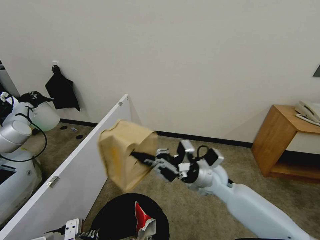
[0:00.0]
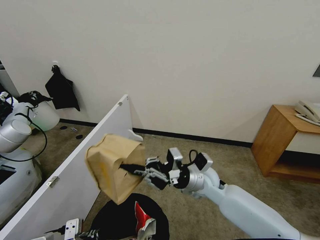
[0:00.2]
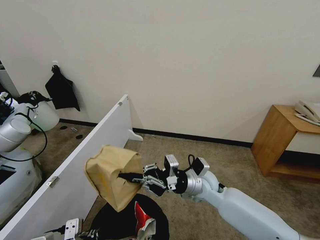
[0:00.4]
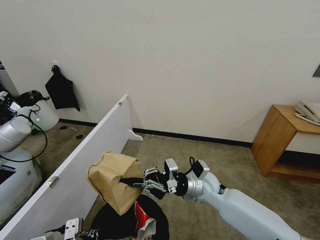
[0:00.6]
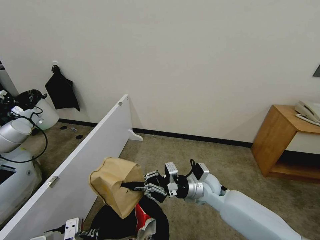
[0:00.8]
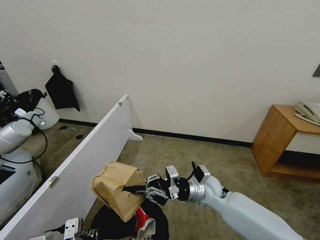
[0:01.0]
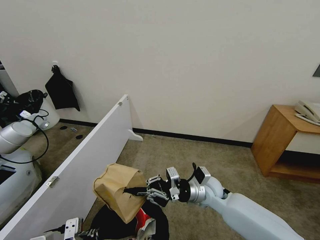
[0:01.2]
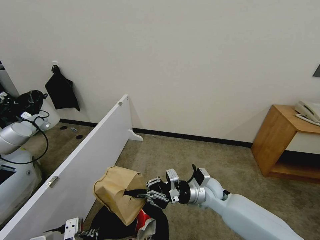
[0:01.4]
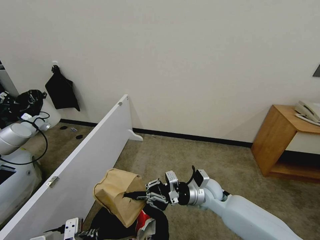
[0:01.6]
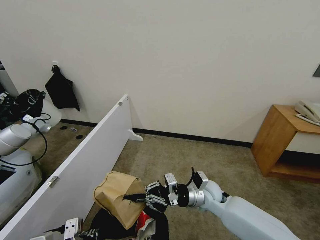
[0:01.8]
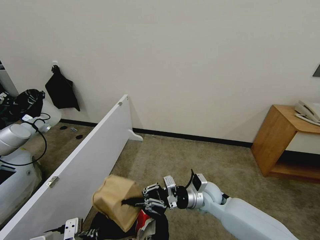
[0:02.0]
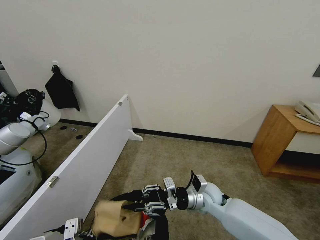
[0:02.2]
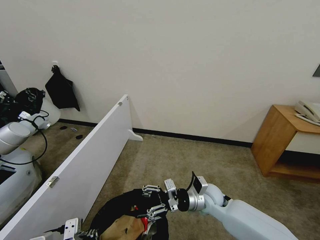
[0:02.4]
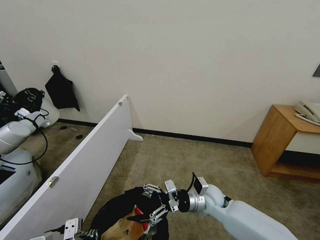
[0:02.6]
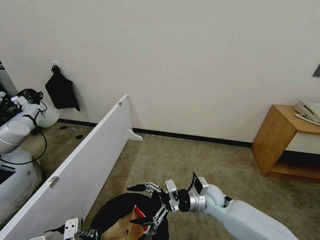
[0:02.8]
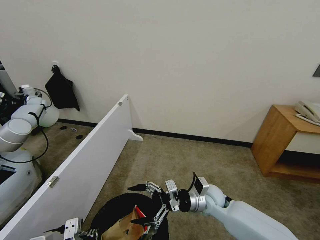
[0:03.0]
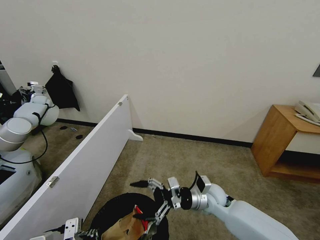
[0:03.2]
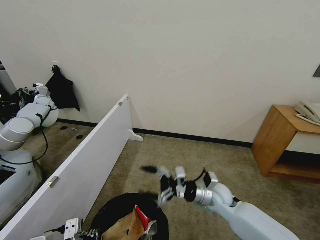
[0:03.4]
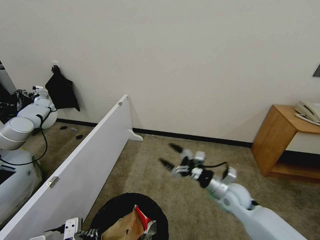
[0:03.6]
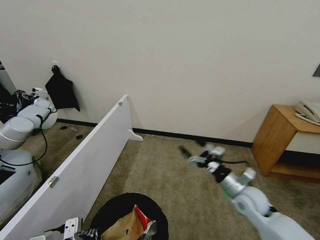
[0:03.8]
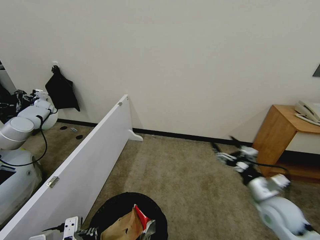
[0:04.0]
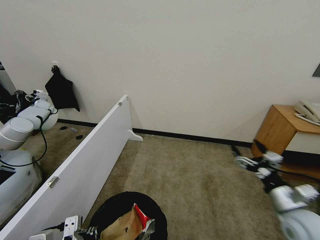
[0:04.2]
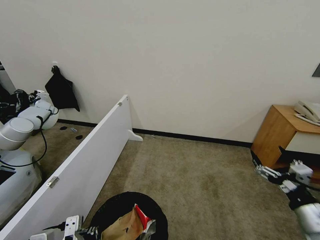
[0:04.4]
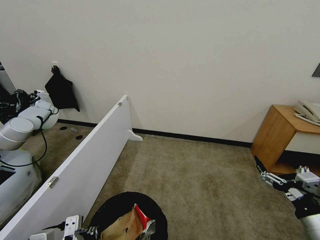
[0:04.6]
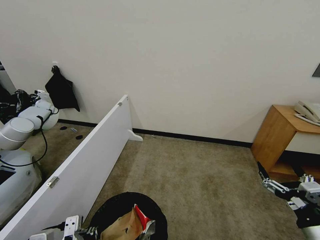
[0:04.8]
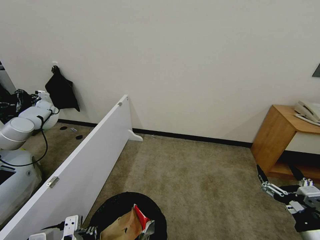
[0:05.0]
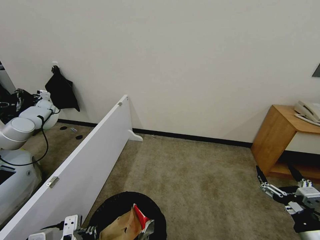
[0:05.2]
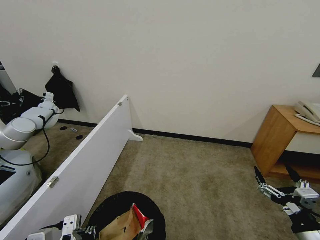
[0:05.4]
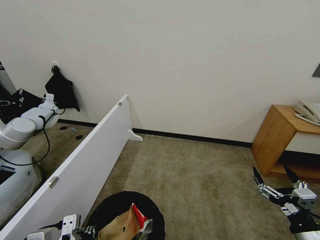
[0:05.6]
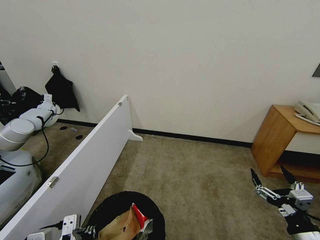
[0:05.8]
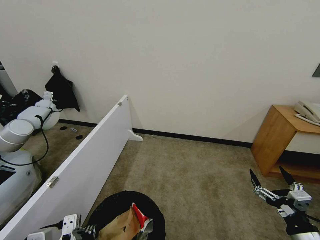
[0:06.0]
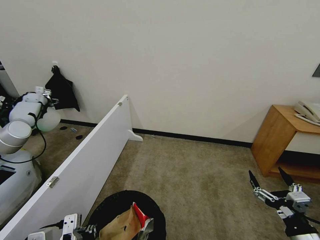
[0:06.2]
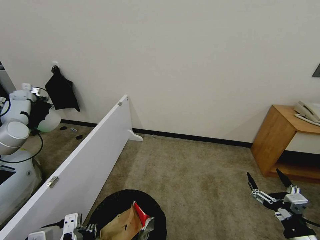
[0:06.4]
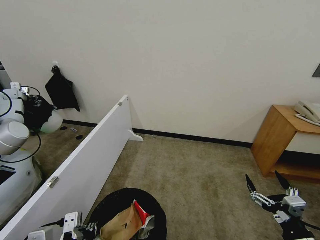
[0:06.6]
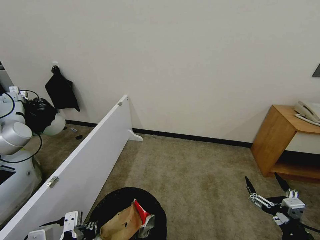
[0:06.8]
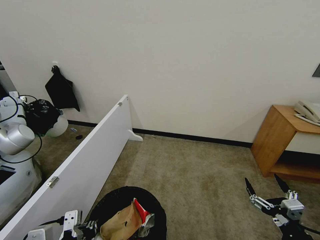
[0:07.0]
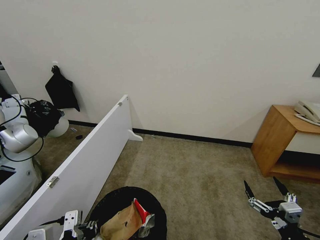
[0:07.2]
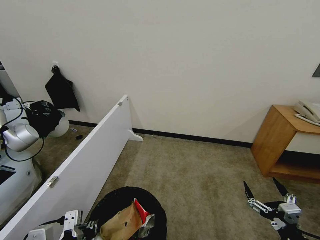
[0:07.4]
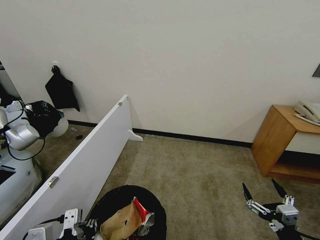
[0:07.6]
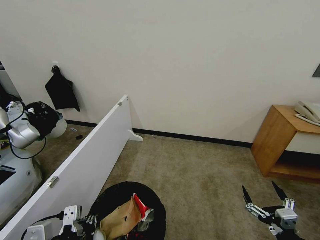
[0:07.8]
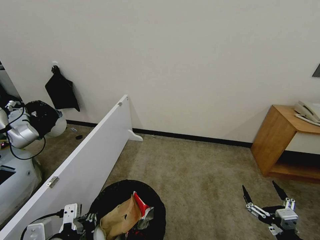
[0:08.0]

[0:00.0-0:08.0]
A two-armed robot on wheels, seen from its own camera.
Task of the whole recording: Pick up the trash bin, then pick up the garbage from the floor and place it into the trash bin.
0:00.0 to 0:01.6: The right gripper heads downward, covering about 10 cm.
0:01.6 to 0:03.2: The right gripper opens its fingers.
0:03.2 to 0:04.8: The right gripper shifts roughly 30 cm to the right and backward.
0:04.8 to 0:06.4: There are only small adjustments of the grippers.
0:06.4 to 0:08.0: The grippers make only small movements.
